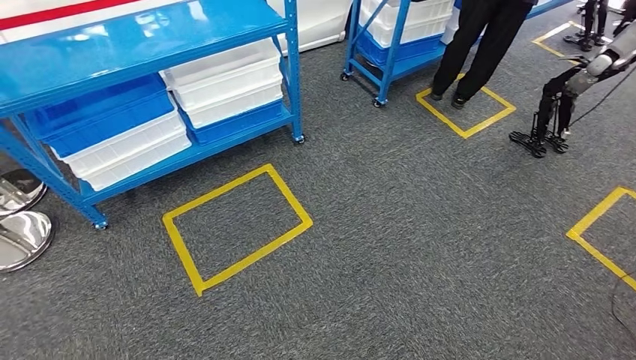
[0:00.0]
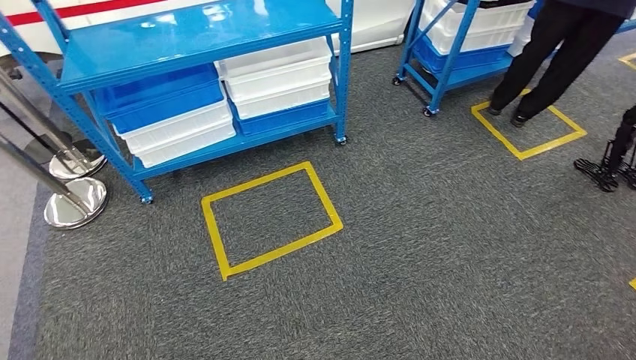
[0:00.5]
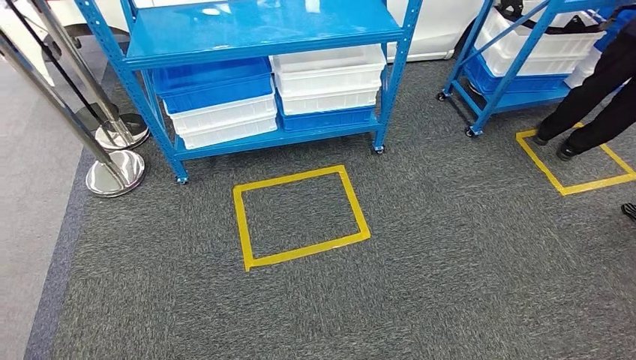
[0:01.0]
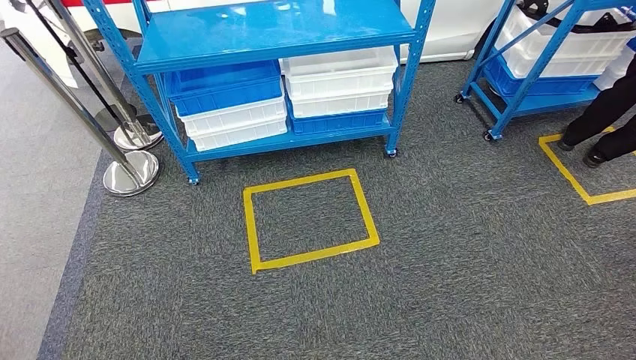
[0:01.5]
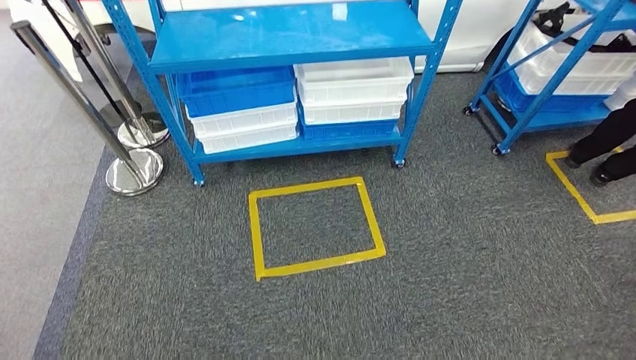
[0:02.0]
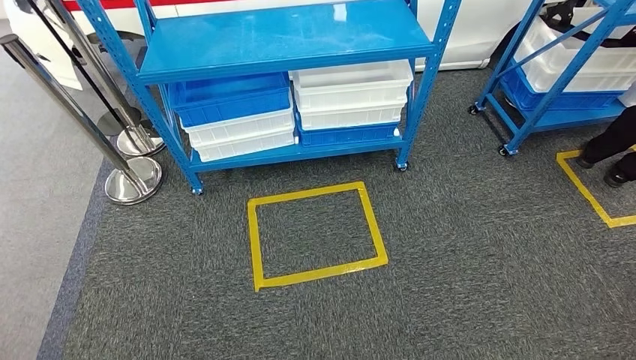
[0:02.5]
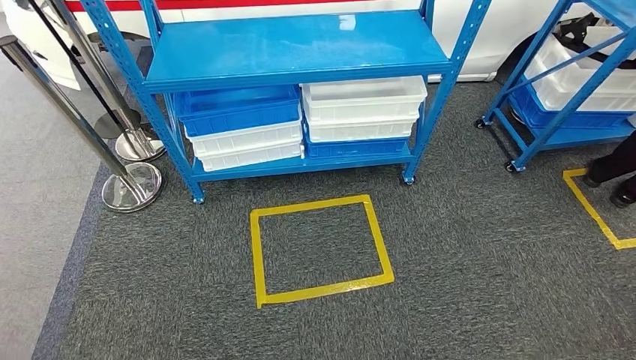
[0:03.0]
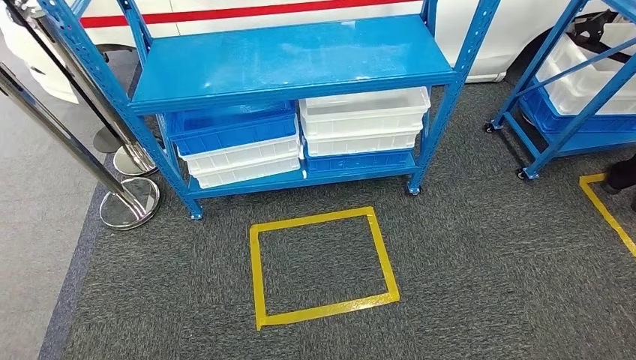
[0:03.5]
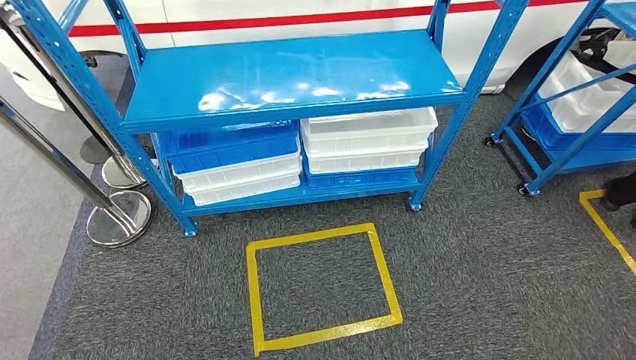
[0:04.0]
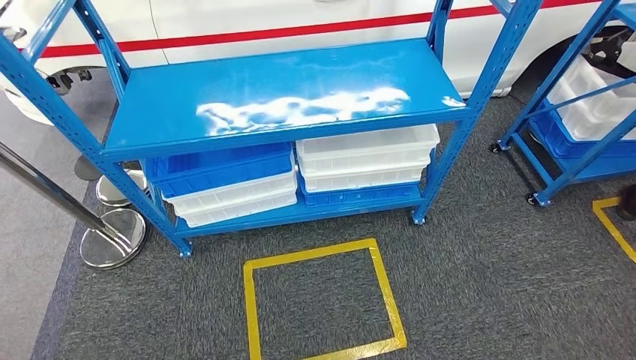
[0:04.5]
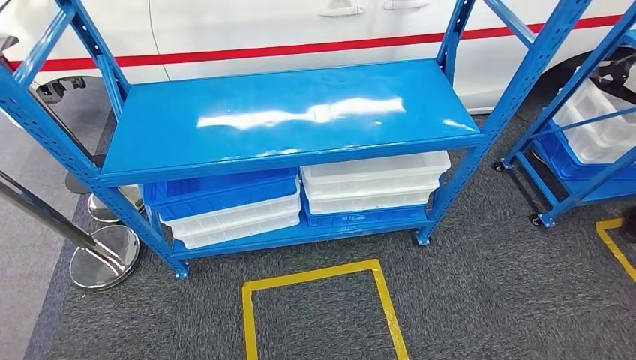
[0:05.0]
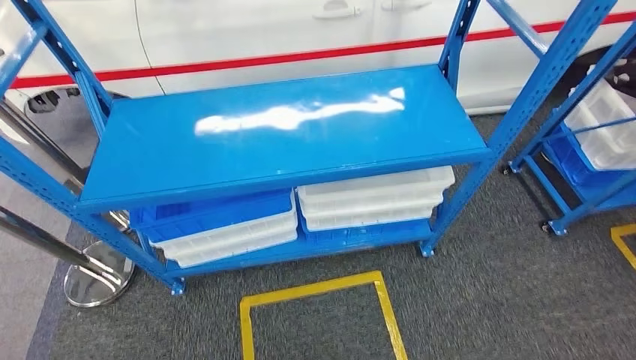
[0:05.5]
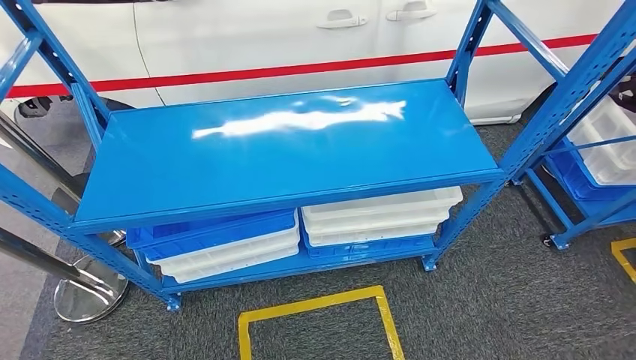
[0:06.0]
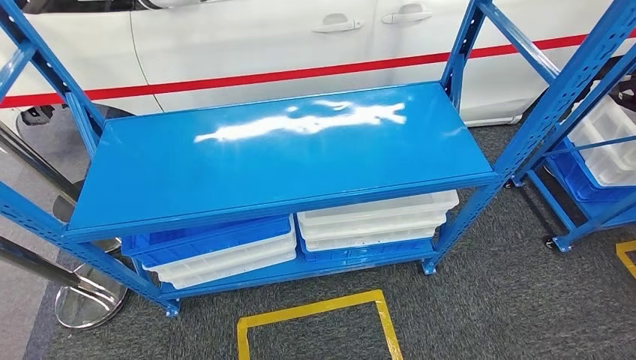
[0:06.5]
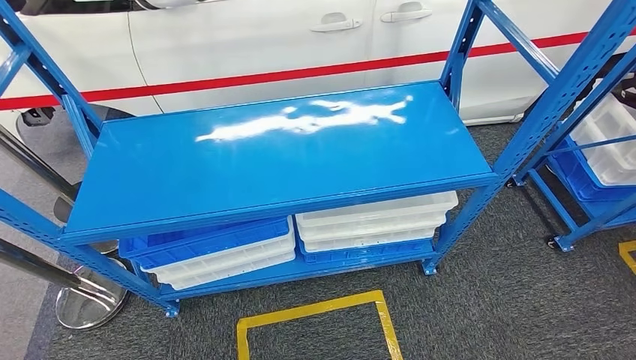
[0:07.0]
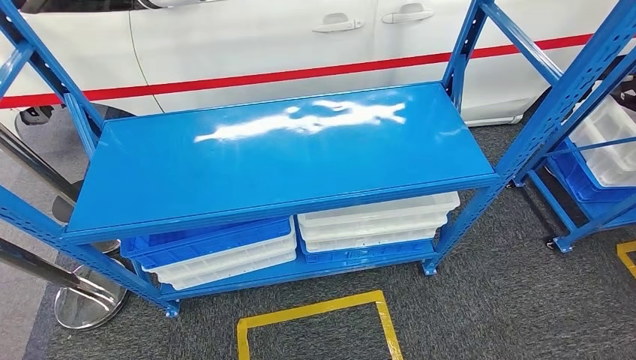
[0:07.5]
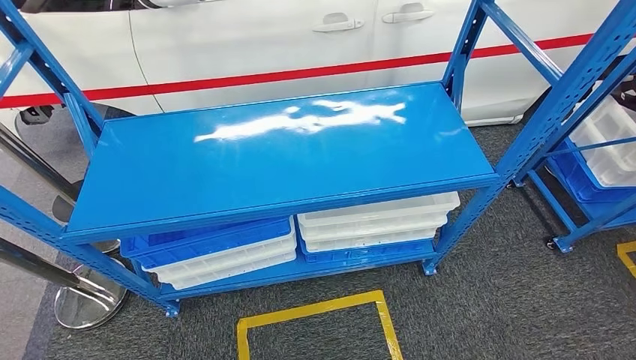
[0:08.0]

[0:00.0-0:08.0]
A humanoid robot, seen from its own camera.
Step, 0:00.0 to 0:08.0: Move to the initial position of the shelf.
